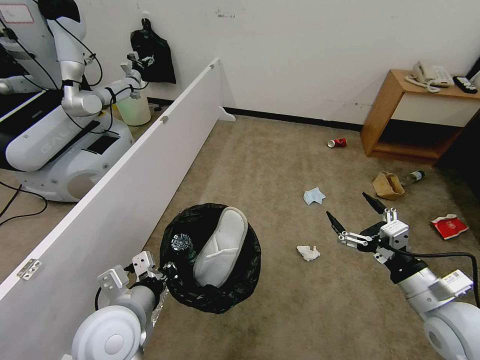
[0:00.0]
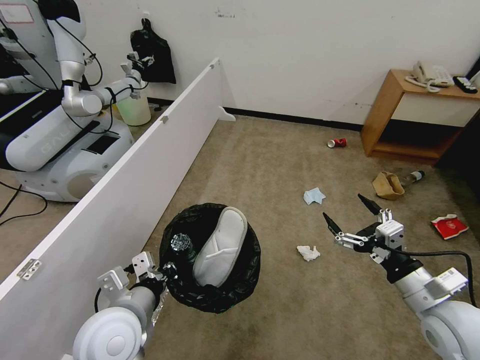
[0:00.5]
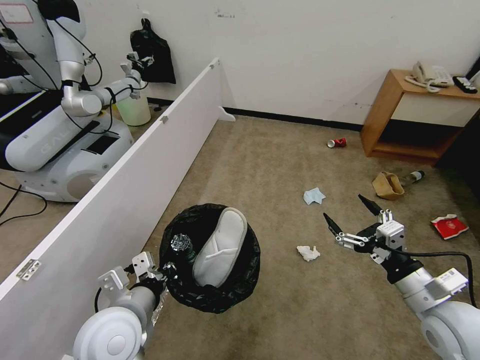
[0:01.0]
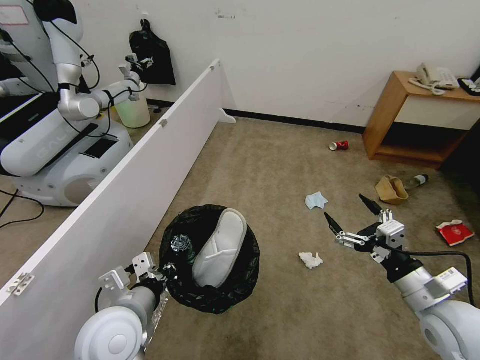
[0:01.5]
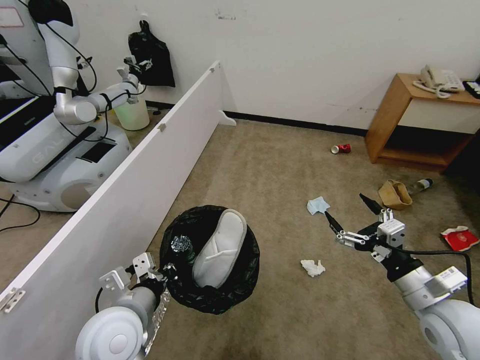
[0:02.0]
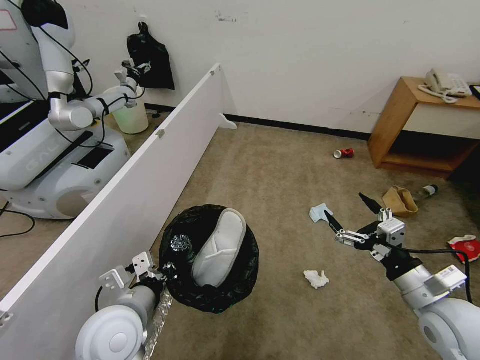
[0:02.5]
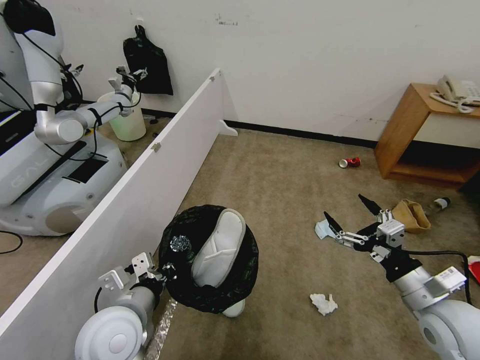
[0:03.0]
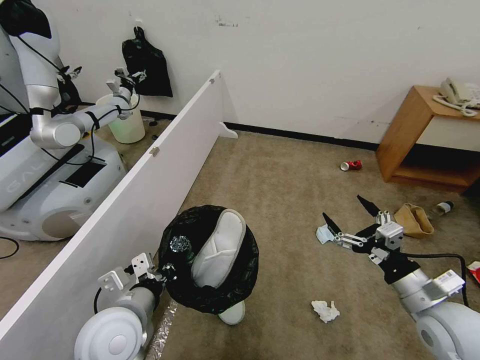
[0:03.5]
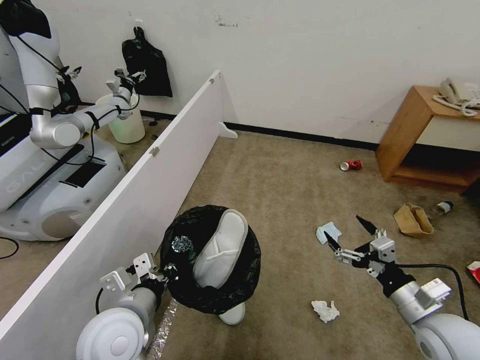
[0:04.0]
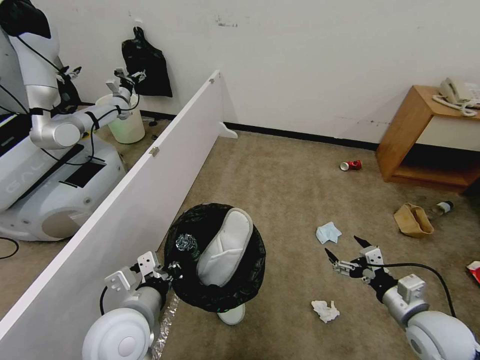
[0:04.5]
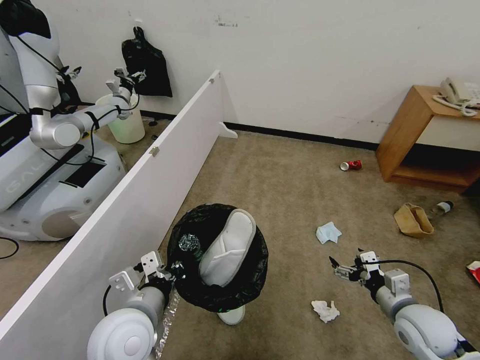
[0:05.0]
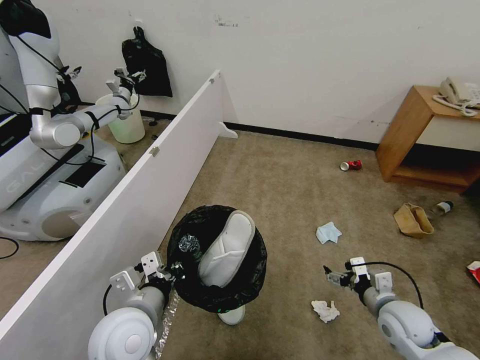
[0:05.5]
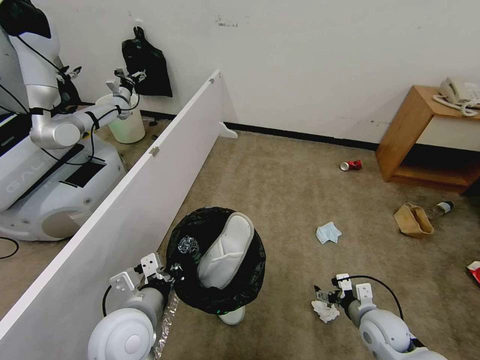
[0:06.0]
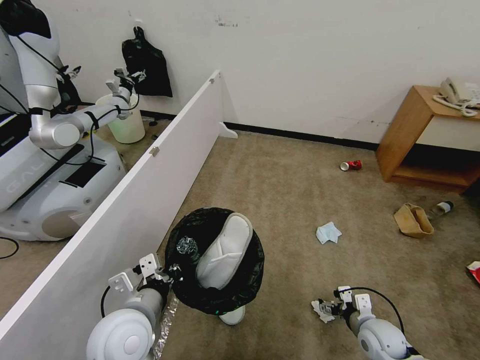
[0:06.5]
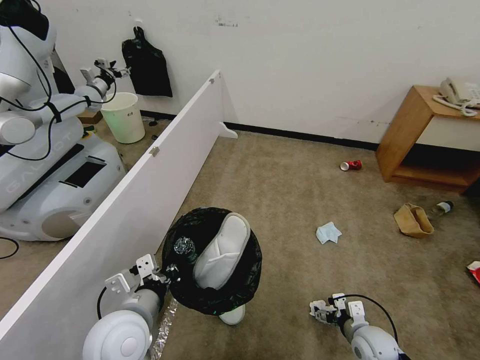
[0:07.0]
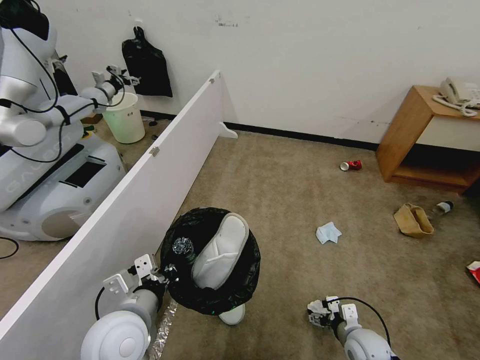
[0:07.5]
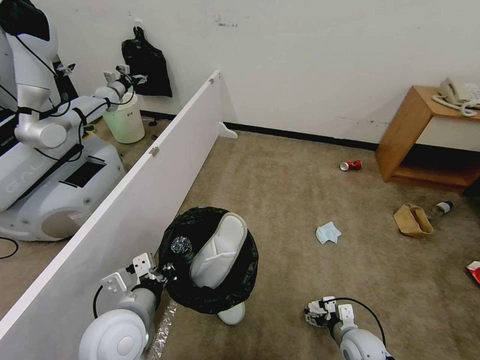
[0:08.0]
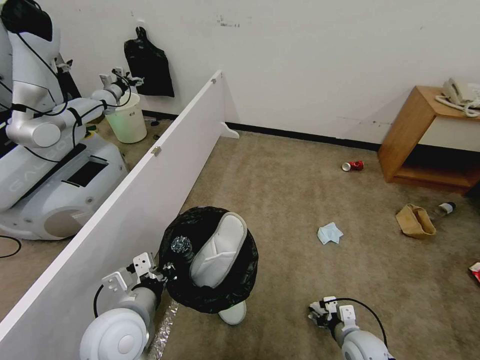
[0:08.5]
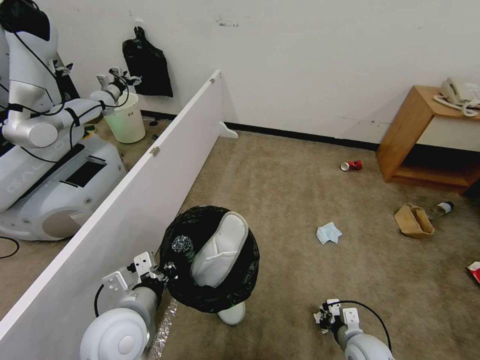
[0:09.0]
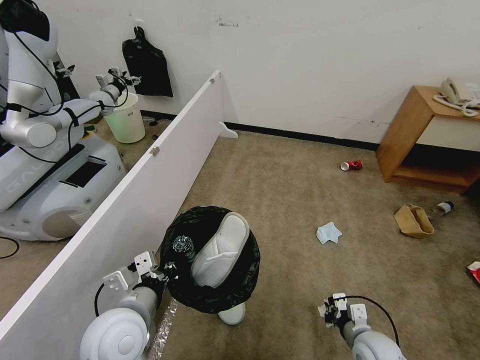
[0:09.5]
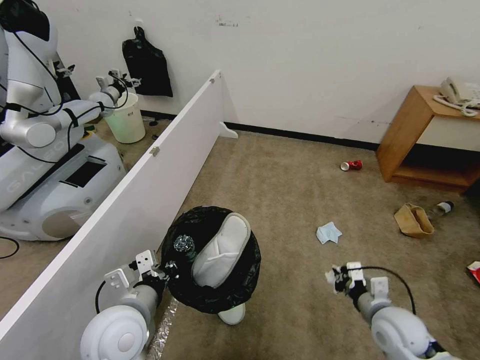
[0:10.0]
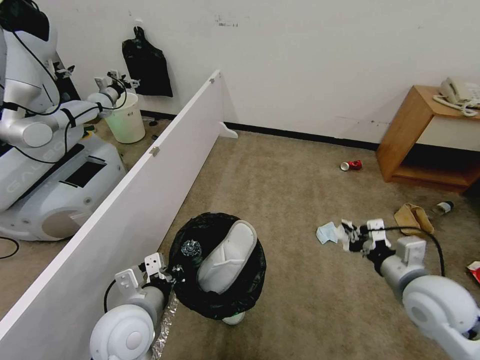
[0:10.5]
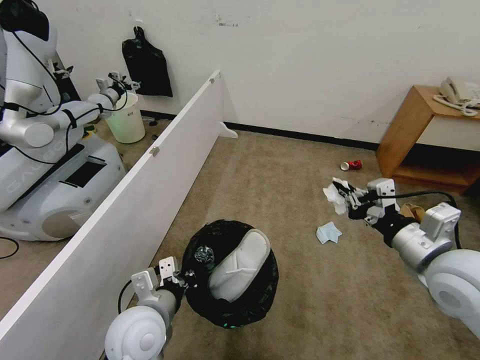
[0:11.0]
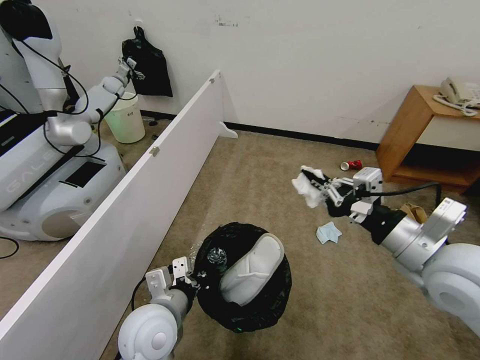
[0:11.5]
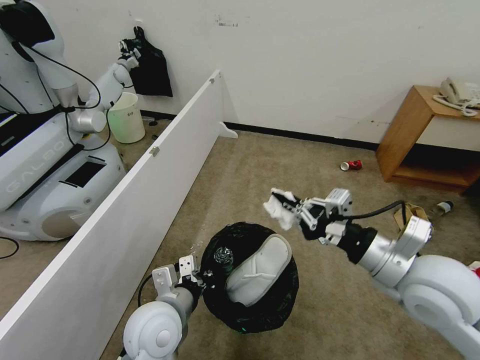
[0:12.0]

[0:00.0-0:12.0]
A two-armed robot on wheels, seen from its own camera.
Task of the whole recording: Pick up the trash bin, then pick up the garbage from the floor and place it into the trash bin.
0:00.0 to 0:02.0: Both grippers stay about where they are.
0:04.0 to 0:06.0: The right gripper heads downward, covering roughly 15 cm.
0:06.0 to 0:08.0: The right gripper travels downward by about 5 cm.
0:08.0 to 0:10.0: The right gripper heads upward, covering approximately 15 cm, and closes up.
0:10.0 to 0:12.0: The right gripper travels upward by approximately 20 cm. The left gripper goes roughly 5 cm to the right.

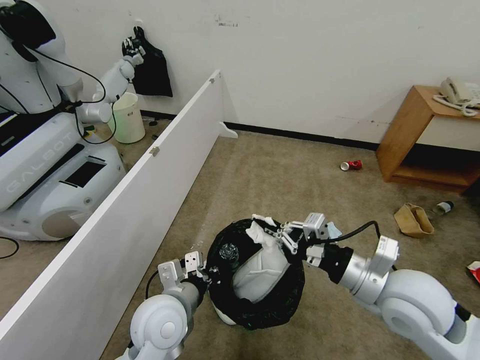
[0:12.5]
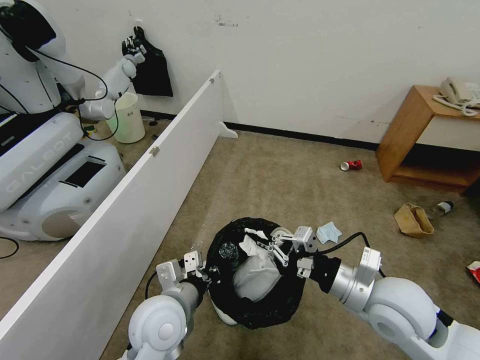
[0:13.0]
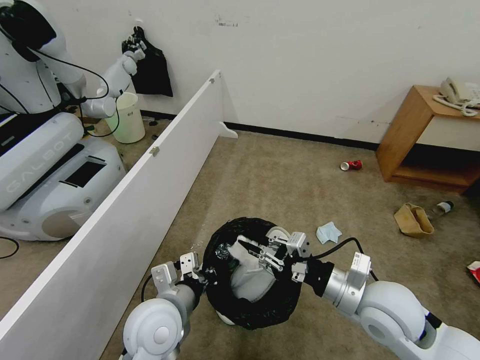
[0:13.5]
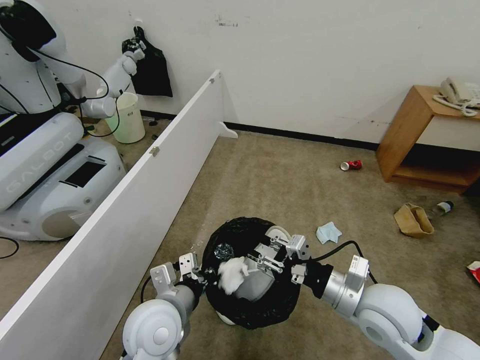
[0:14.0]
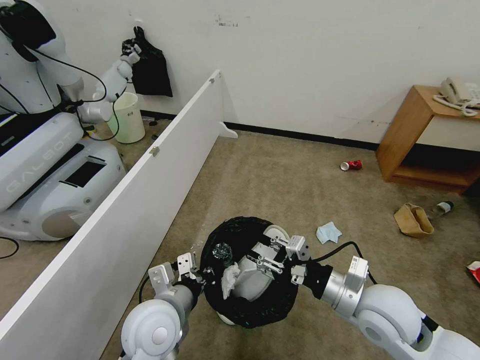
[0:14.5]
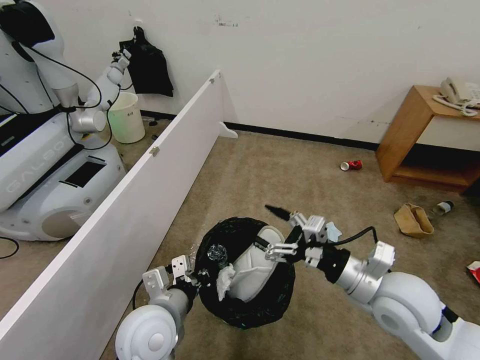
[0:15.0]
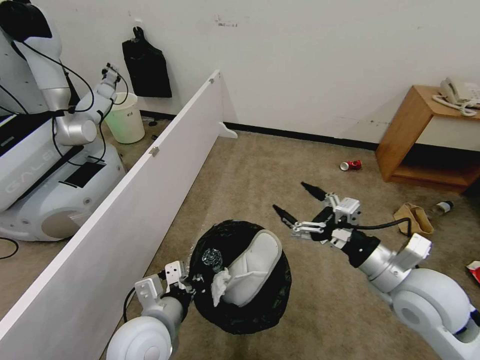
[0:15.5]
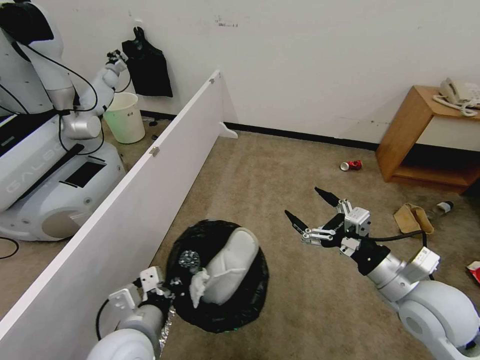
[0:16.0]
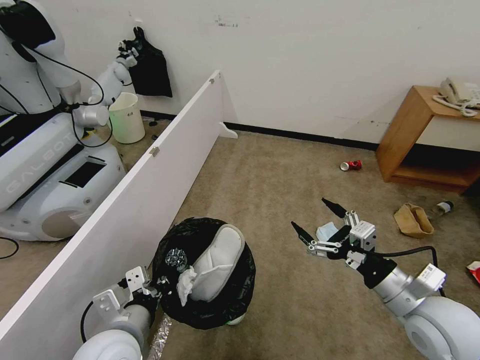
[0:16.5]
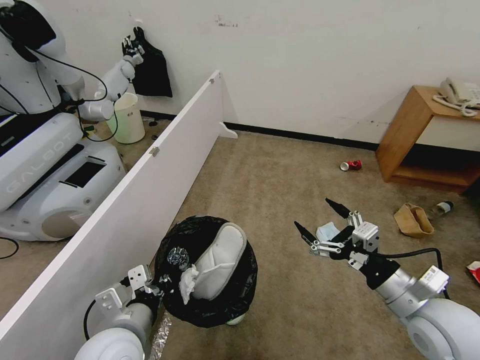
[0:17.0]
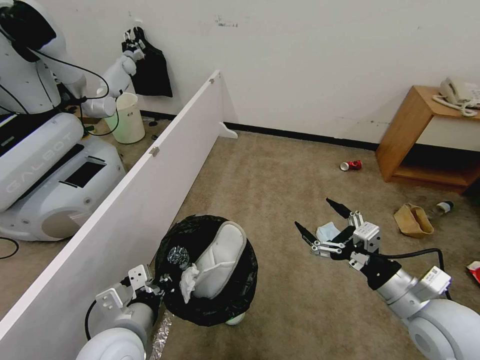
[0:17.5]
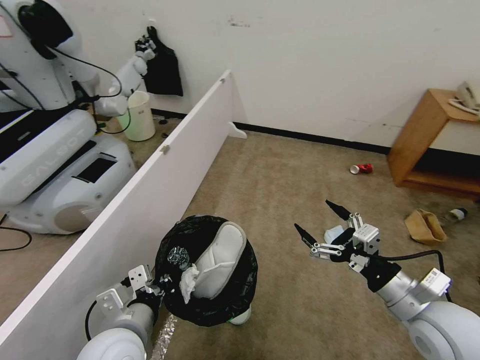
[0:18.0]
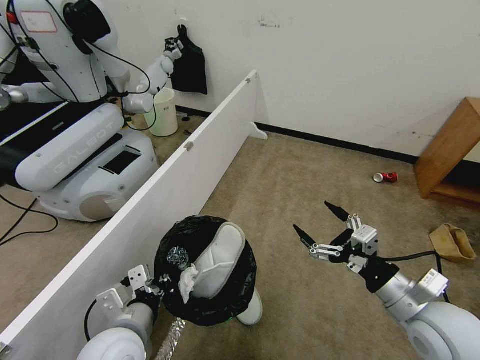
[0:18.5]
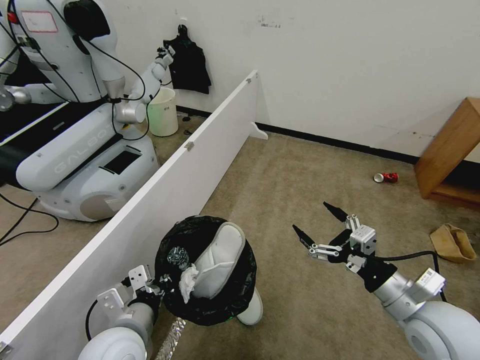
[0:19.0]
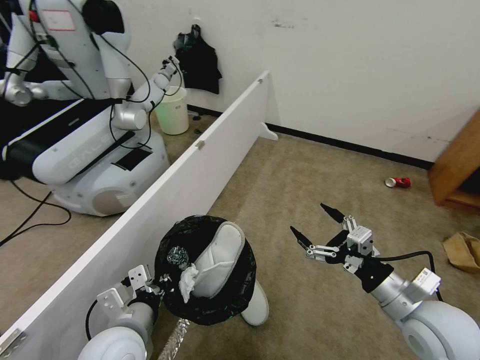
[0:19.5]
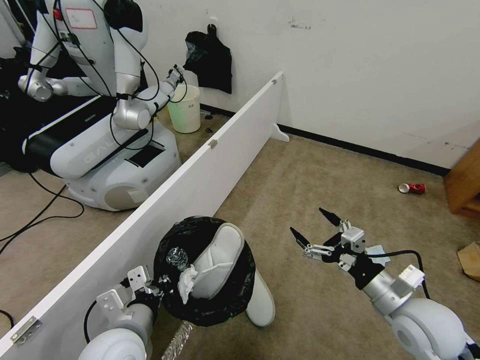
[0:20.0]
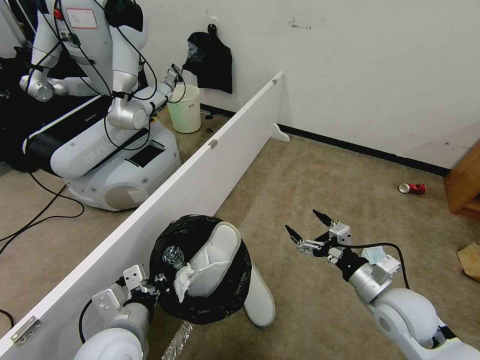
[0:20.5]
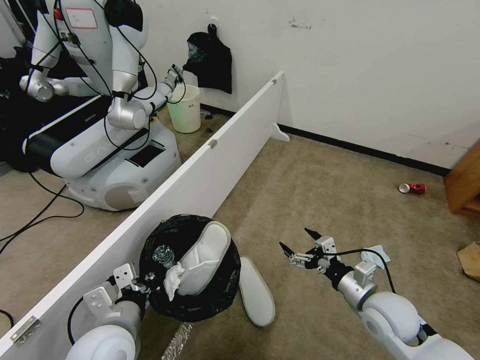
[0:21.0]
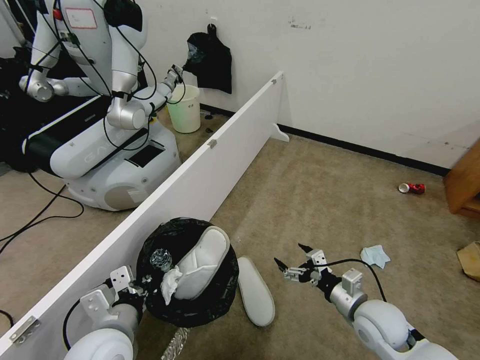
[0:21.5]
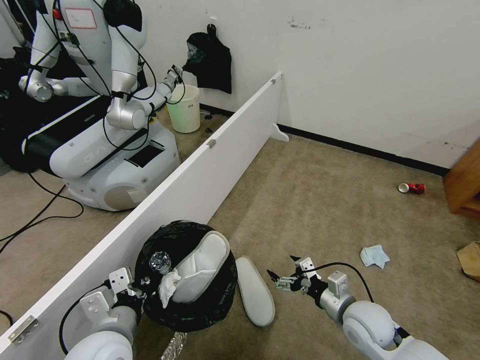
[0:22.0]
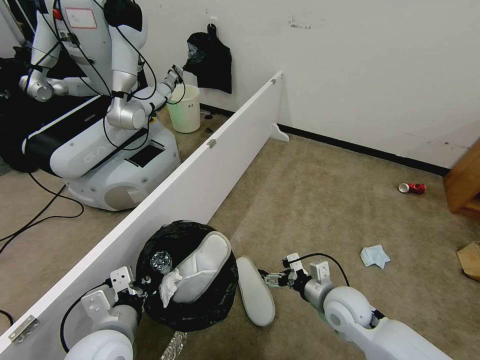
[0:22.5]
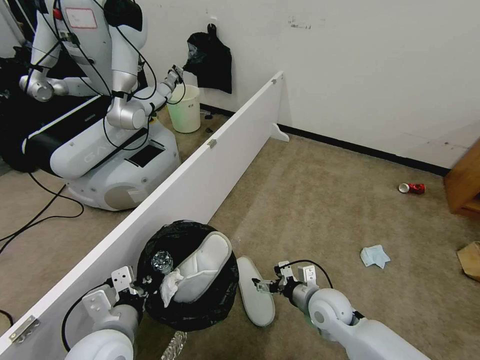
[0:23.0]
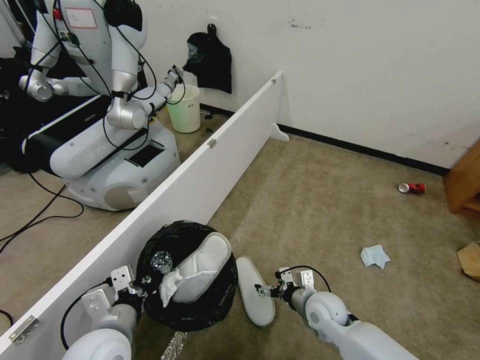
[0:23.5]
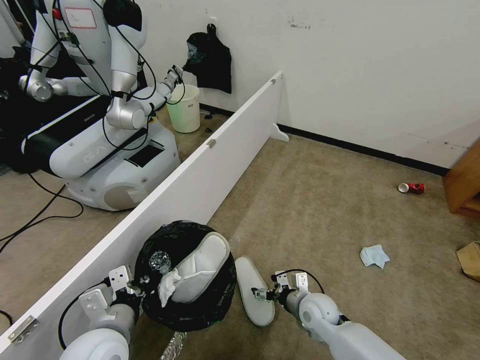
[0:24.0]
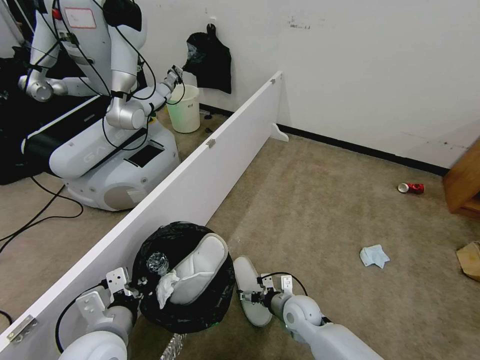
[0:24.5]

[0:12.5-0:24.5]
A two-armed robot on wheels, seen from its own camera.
Task of the whole recording: Pick up the trash bin, then pick up the garbage from the floor and place it into the trash bin.
0:12.5 to 0:14.5: The right gripper travels downward by some 5 cm, and opens its fingers.
0:14.5 to 0:16.5: The right gripper is displaced to the right by approximately 5 cm, and opens. The left gripper is displaced to the left and backward by some 5 cm.
0:18.5 to 0:20.5: The right gripper heads downward, covering some 5 cm.
0:20.5 to 0:22.5: The right gripper is displaced to the left and downward by some 10 cm.
0:22.5 to 0:24.5: The right gripper shifts about 15 cm downward and to the left.

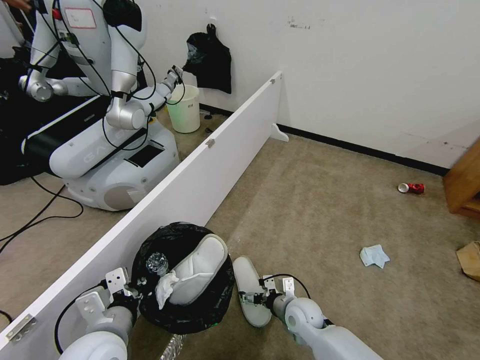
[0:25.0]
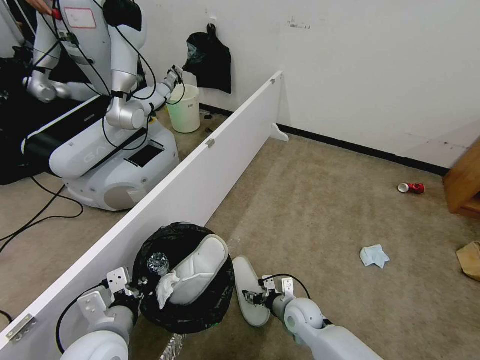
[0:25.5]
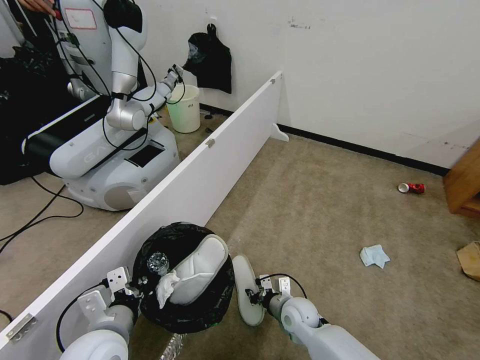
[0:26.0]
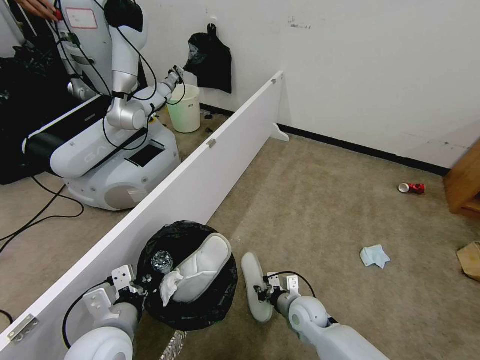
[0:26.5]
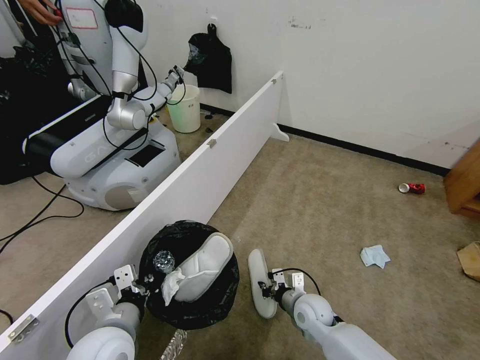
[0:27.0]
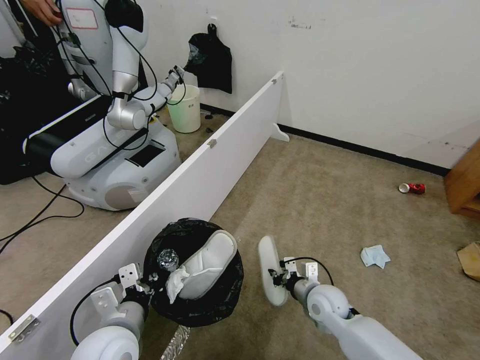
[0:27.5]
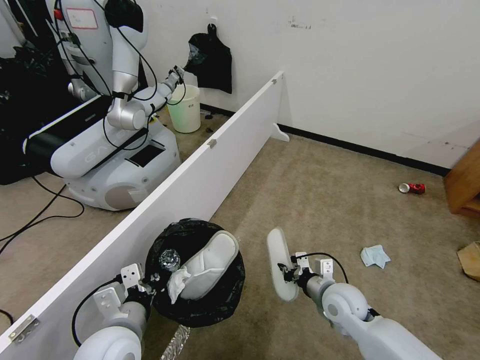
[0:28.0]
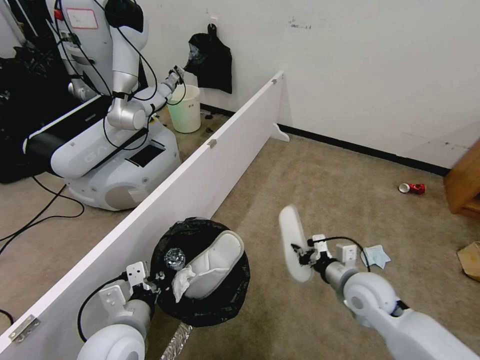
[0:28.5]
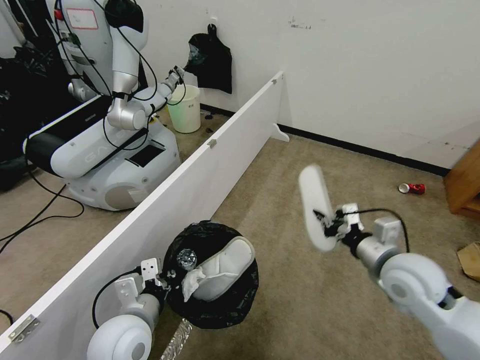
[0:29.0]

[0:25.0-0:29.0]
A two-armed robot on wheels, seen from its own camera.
Task of the whole recording: Pick up the trash bin, then pick up the garbage from the floor and place it into the trash bin.
0:25.0 to 0:27.0: The right gripper closes.
0:27.0 to 0:29.0: The right gripper shifts about 20 cm upward and to the right.
